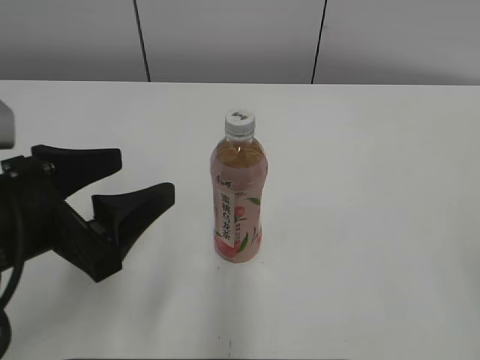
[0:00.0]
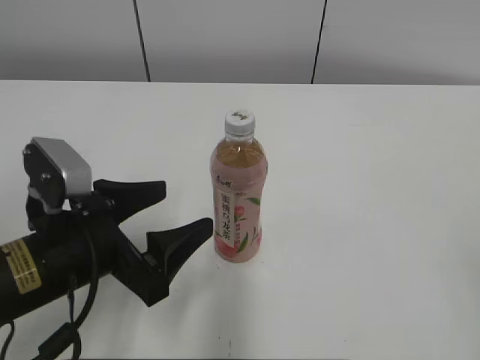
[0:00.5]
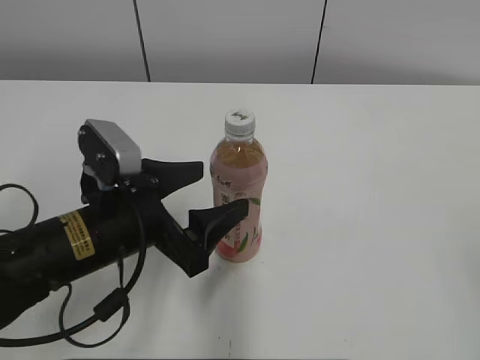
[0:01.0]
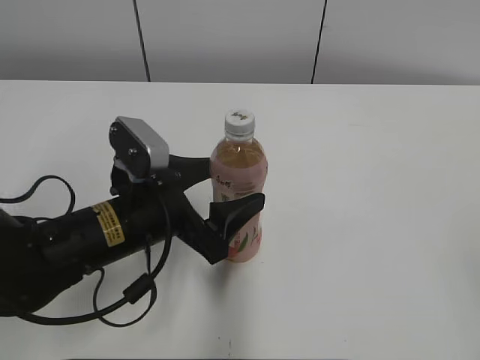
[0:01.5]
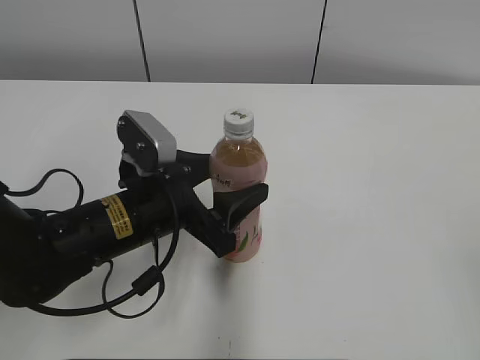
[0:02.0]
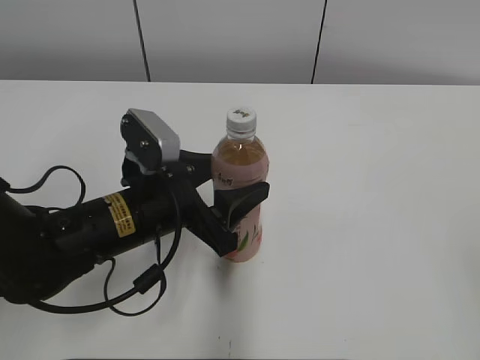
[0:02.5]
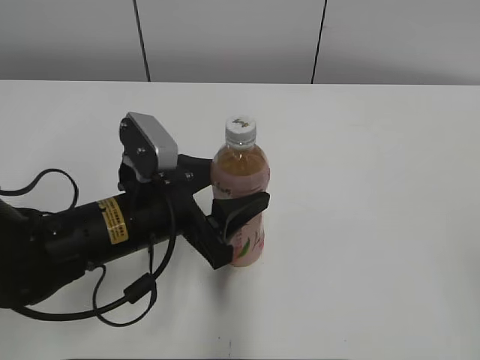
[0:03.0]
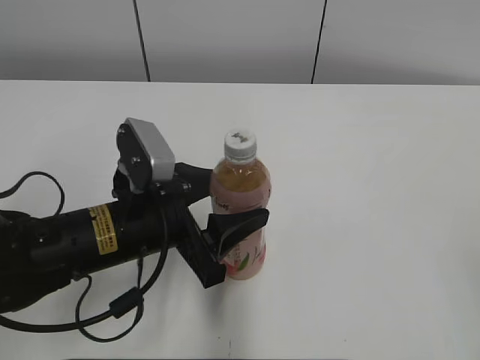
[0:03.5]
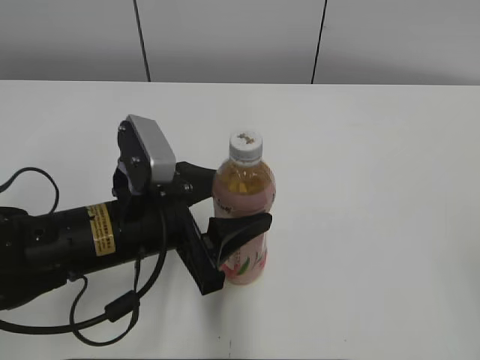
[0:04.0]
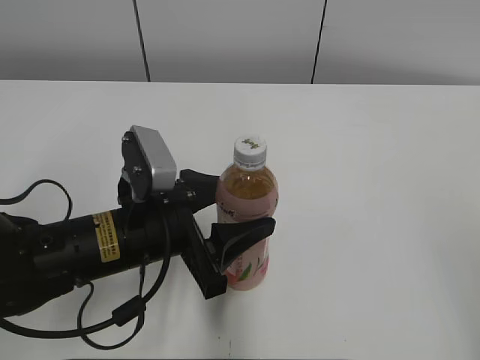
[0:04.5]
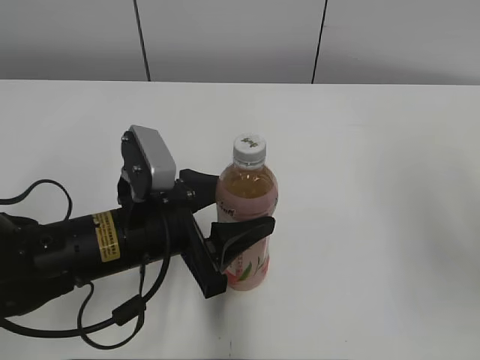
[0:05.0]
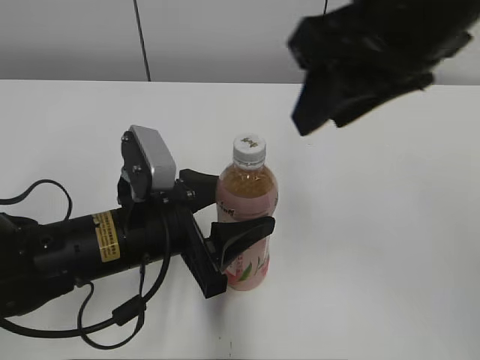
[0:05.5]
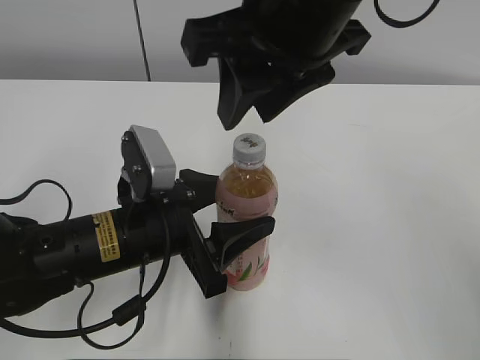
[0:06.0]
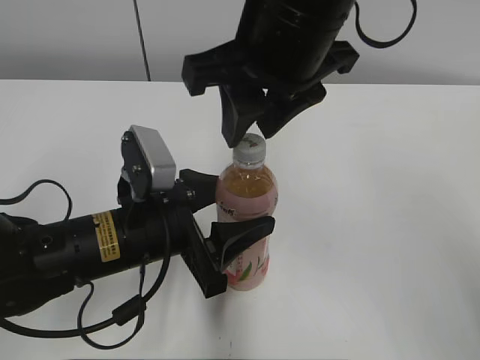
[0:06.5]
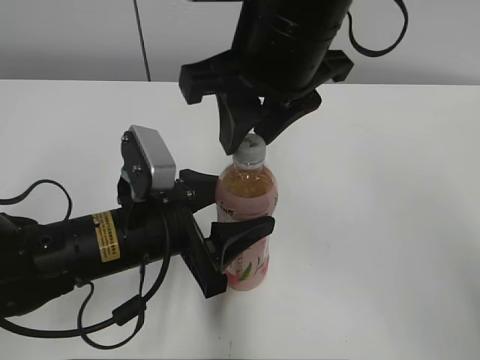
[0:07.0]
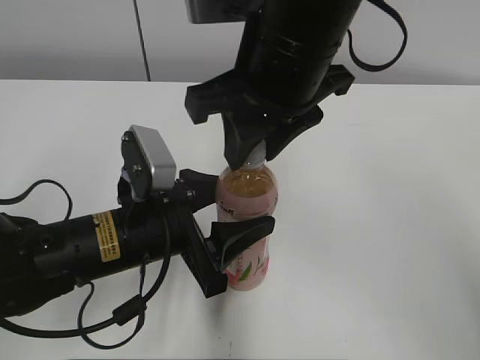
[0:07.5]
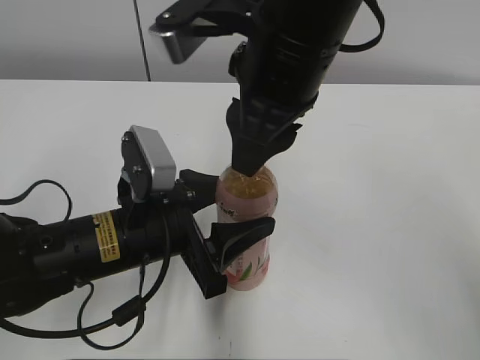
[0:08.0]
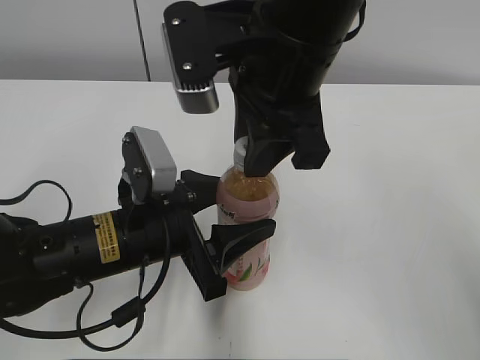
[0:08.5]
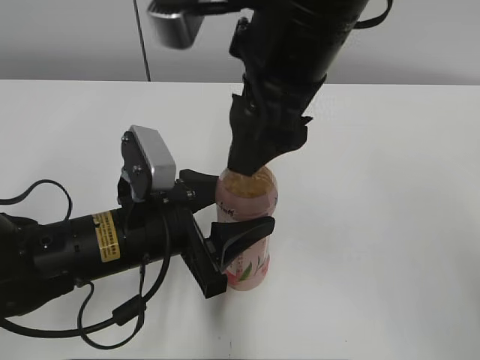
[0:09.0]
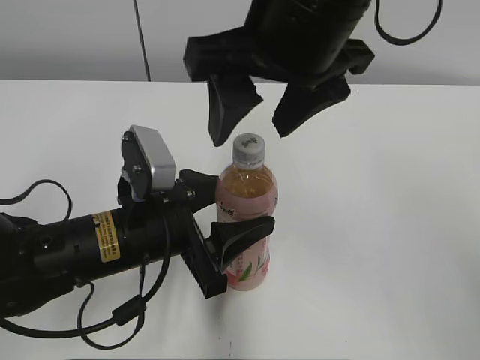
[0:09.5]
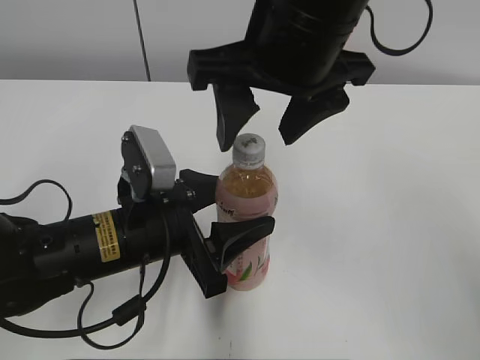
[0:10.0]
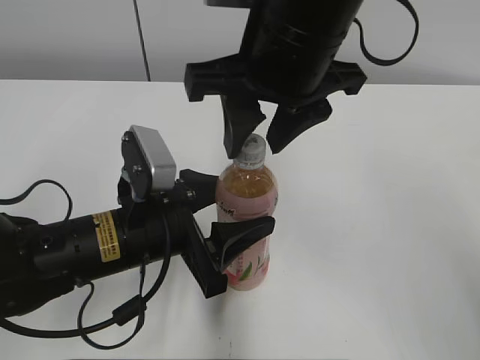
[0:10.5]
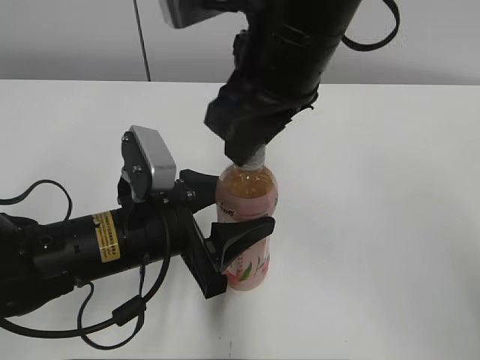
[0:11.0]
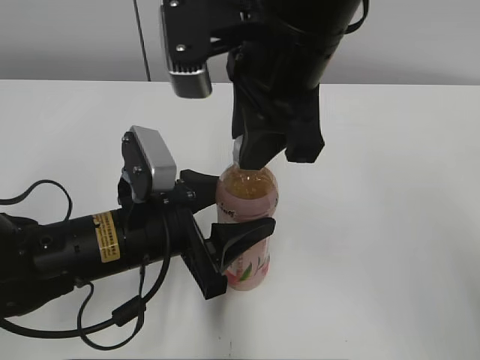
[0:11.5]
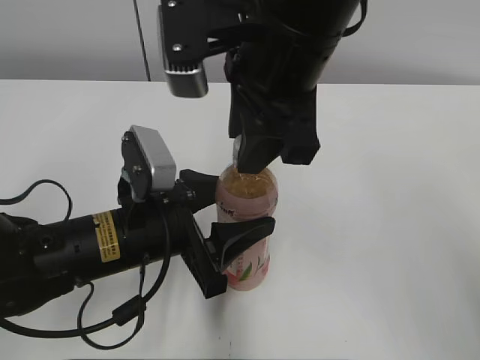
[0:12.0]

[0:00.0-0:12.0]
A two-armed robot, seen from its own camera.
Step, 0:00.0 to 0:02.0: Grab the Peach Oolong Tea with the left hand.
Step, 0:02.5 to 0:06.0: Move the Peach Oolong Tea from left to right.
0:00.0 to 0:02.0: The left gripper shifts about 15 cm forward, downward and to the right.
0:02.0 to 0:04.0: The grippers stay close to where they were, moving slightly.
0:04.0 to 0:06.0: The right gripper heads forward and to the left, covering roughly 35 cm.
0:08.0 to 0:10.0: The right gripper opens.
0:10.0 to 0:12.0: The right gripper closes.

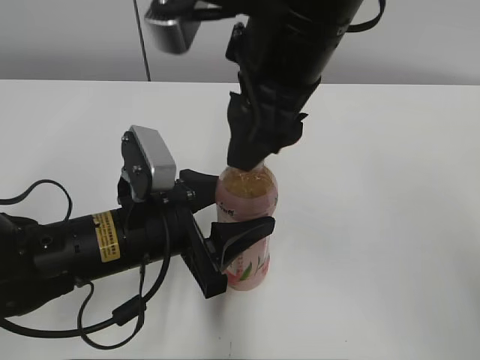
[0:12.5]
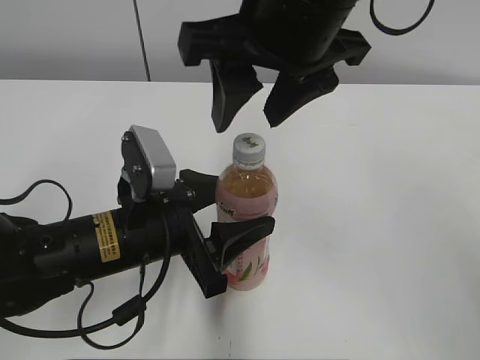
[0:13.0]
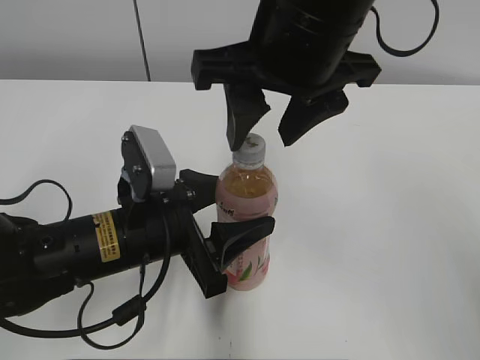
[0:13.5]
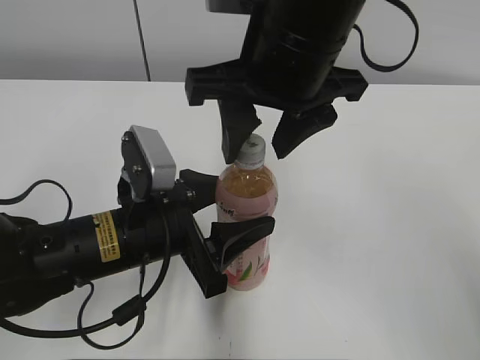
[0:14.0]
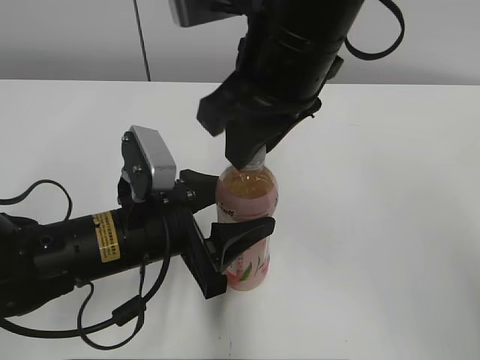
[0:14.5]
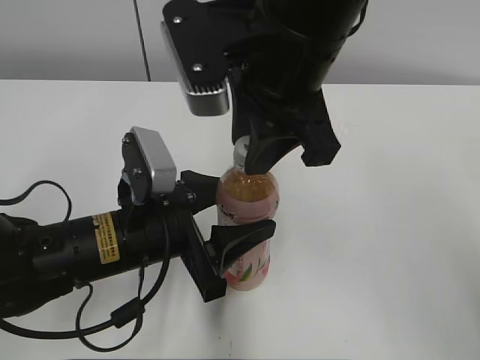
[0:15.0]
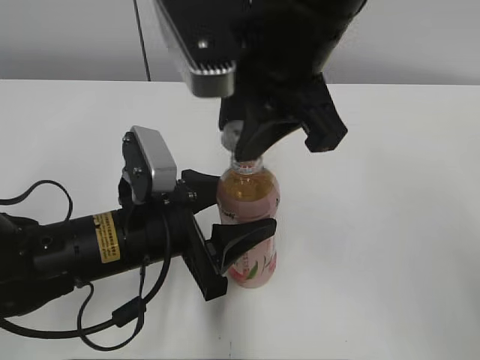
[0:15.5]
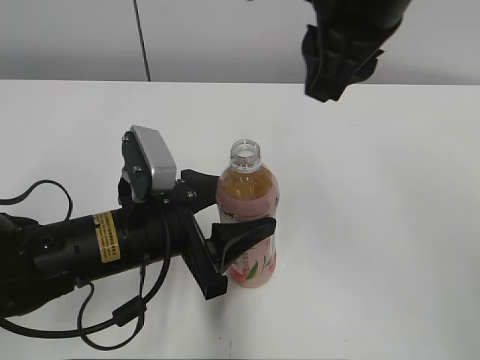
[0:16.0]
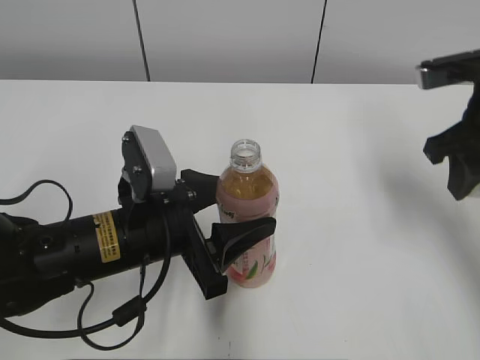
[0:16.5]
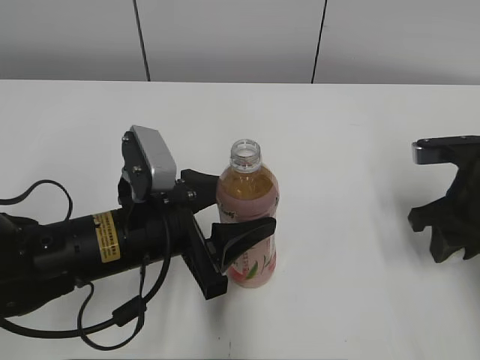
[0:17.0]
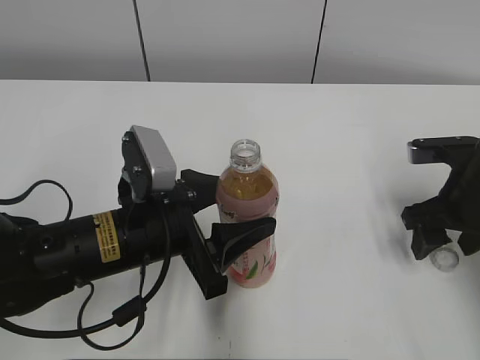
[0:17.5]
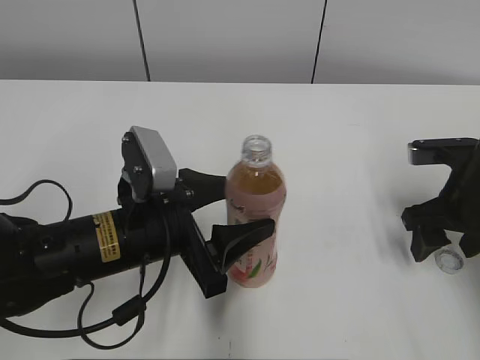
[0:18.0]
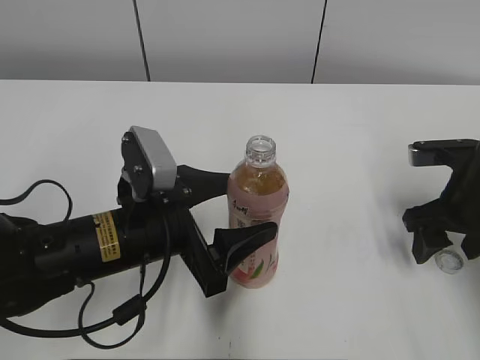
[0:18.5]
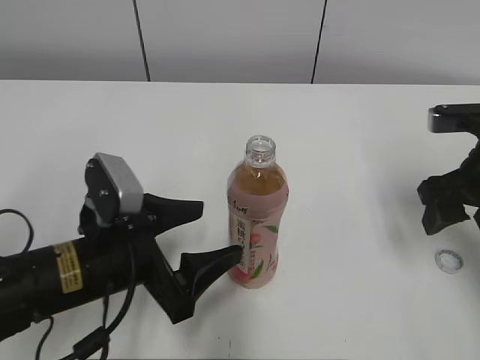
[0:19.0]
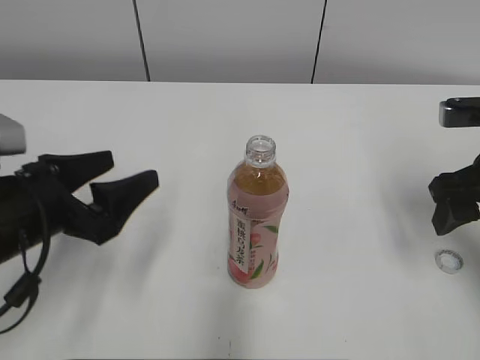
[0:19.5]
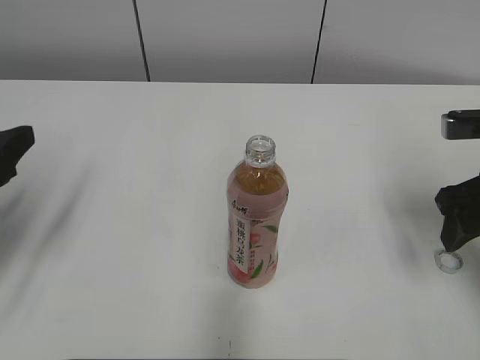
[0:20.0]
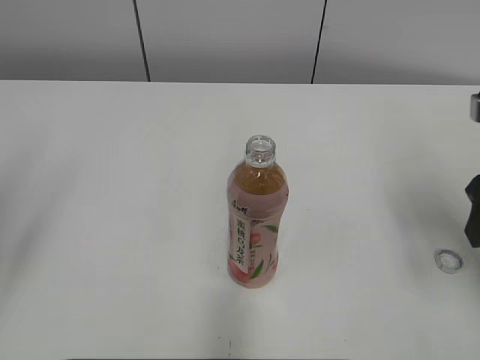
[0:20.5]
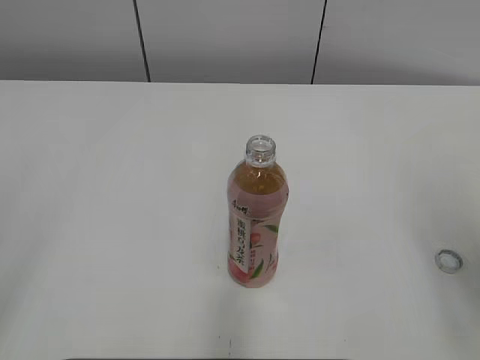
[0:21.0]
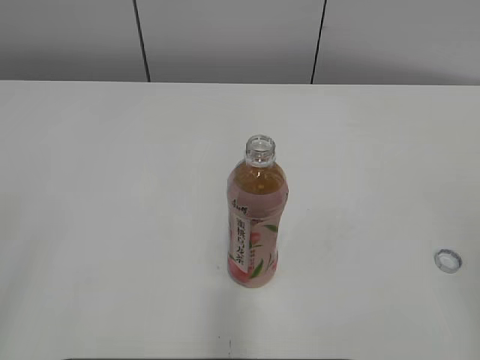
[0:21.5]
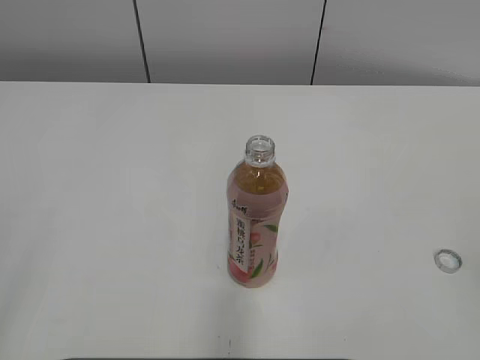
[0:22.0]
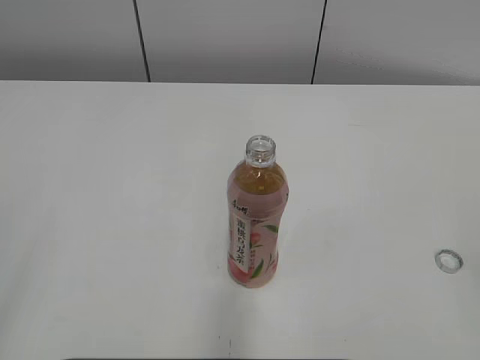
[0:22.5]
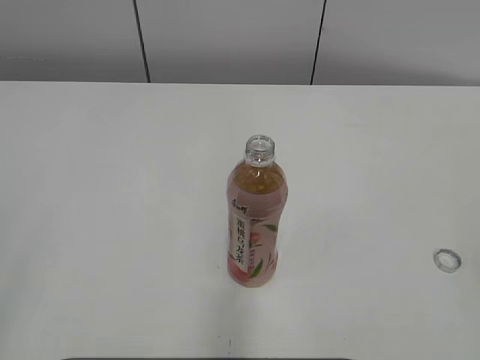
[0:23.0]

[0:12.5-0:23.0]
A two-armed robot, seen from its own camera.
Step, 0:15.5 to 0:17.5: Place the bottle cap on the right.
Step, 0:18.0 to 0:18.5: Place the Peach Oolong Tea with the left hand.
0:12.5 to 0:14.5: The right gripper closes.
0:14.5 to 0:16.5: The right gripper heads to the right, covering about 20 cm.
0:16.5 to 0:19.0: The right gripper goes approximately 5 cm downward, and opens up; the left gripper opens.
0:19.0 to 0:21.0: The right gripper shifts about 15 cm backward and upward; the left gripper is displaced upward, to the left and backward by roughly 30 cm.
0:21.0 to 0:23.0: The right gripper heads backward, covering about 15 cm.
